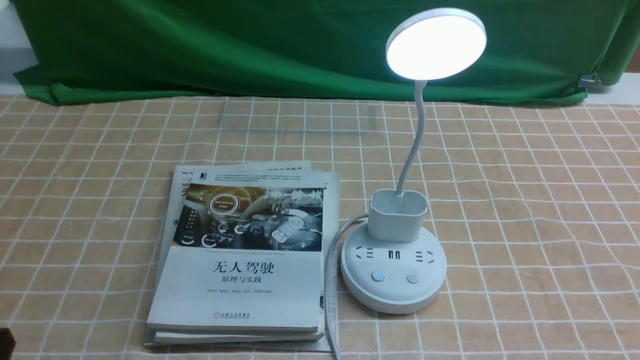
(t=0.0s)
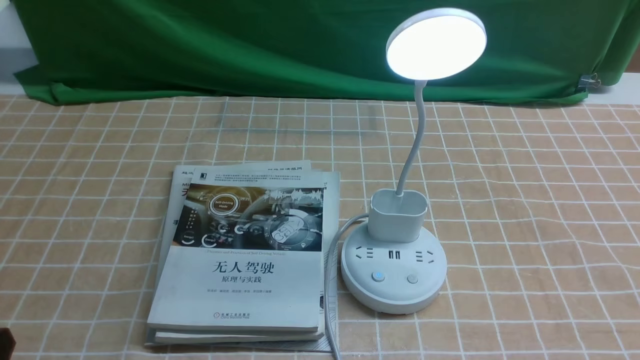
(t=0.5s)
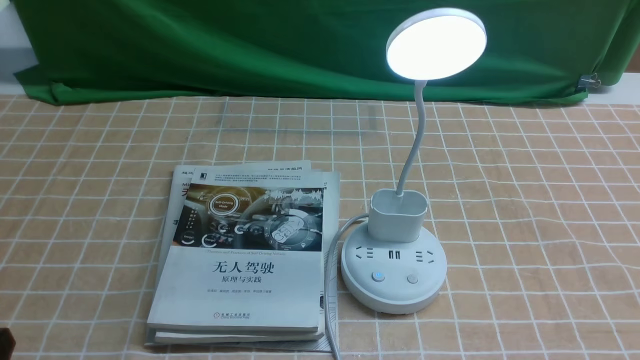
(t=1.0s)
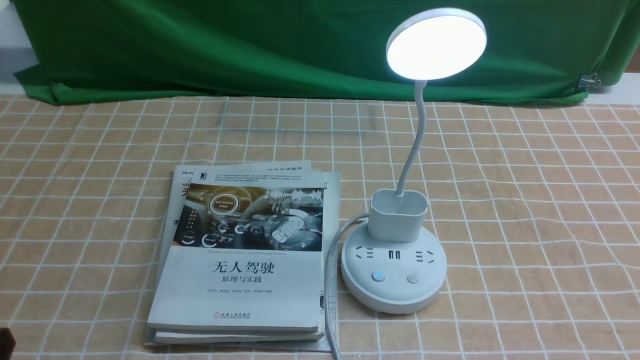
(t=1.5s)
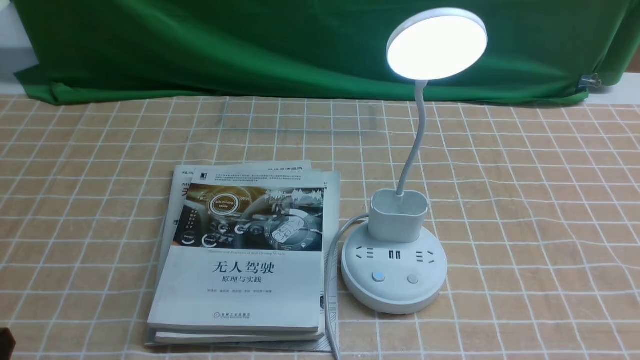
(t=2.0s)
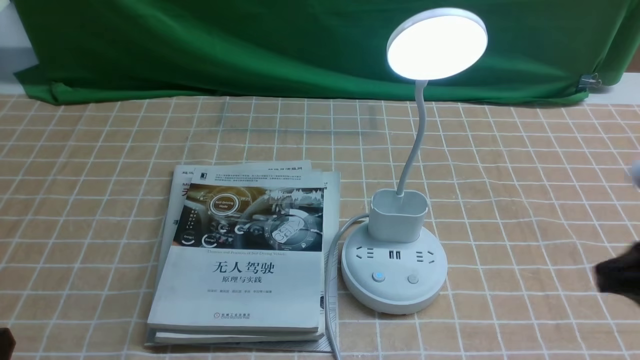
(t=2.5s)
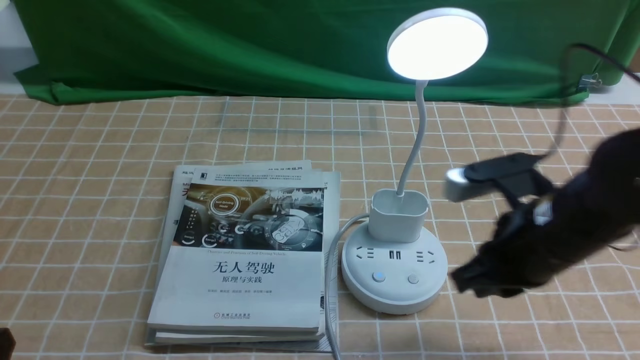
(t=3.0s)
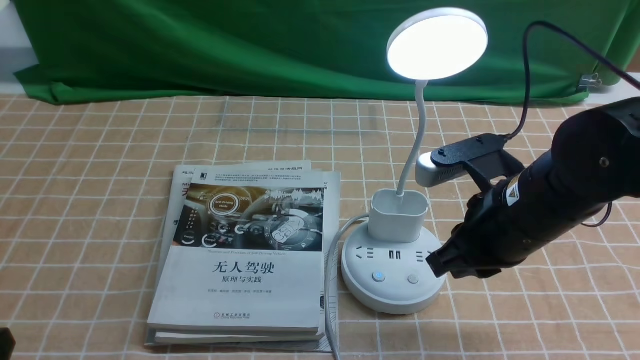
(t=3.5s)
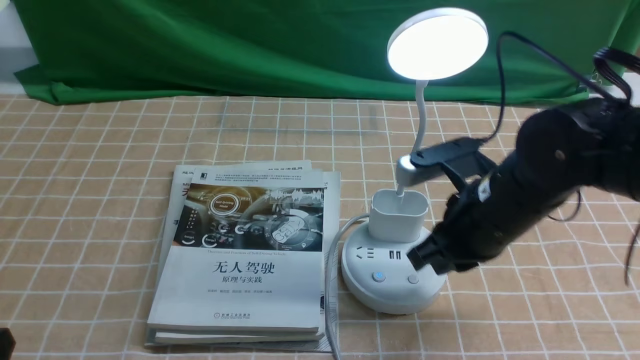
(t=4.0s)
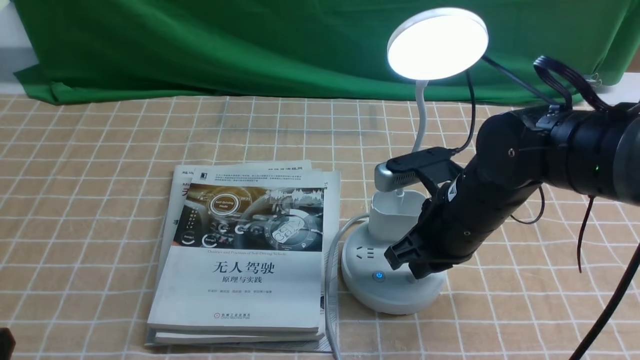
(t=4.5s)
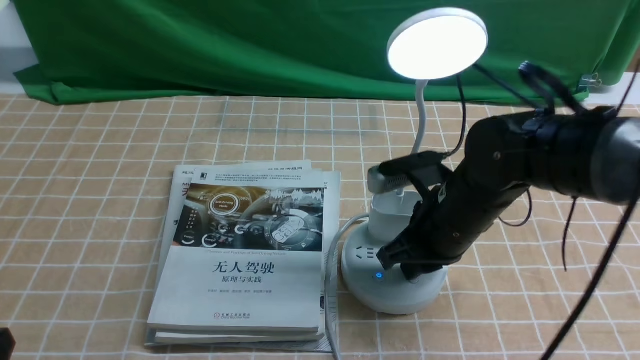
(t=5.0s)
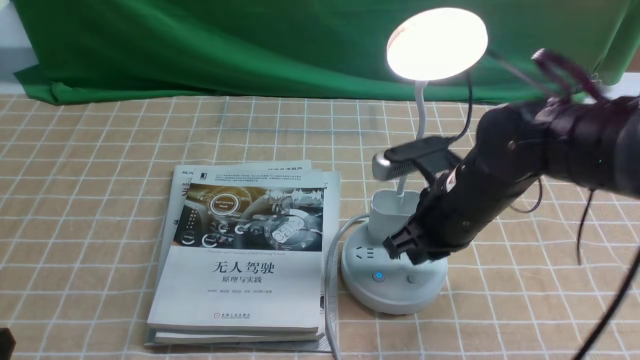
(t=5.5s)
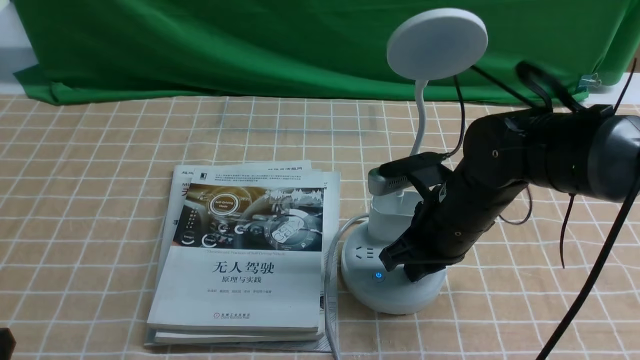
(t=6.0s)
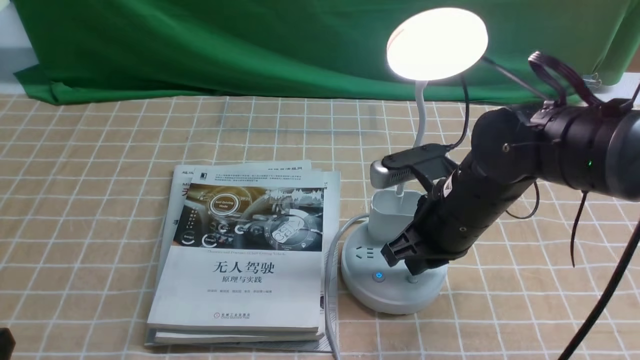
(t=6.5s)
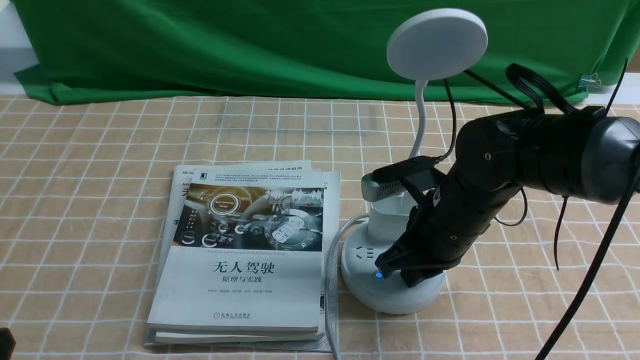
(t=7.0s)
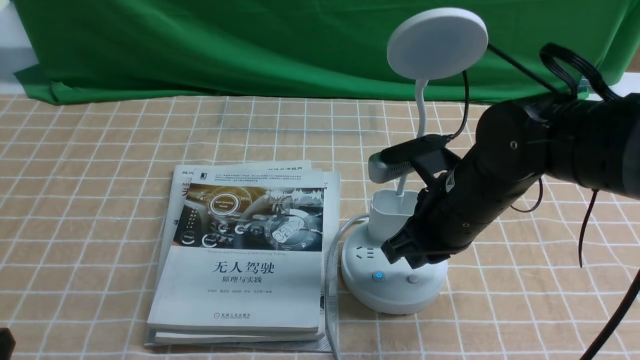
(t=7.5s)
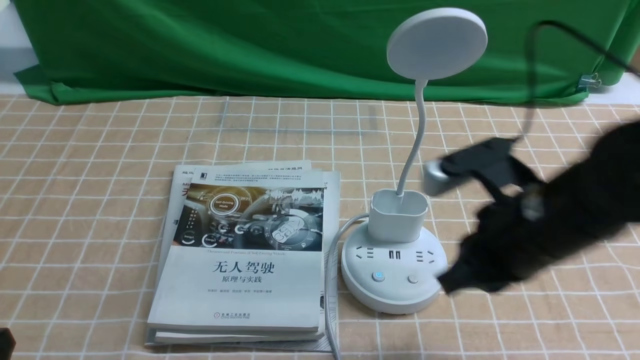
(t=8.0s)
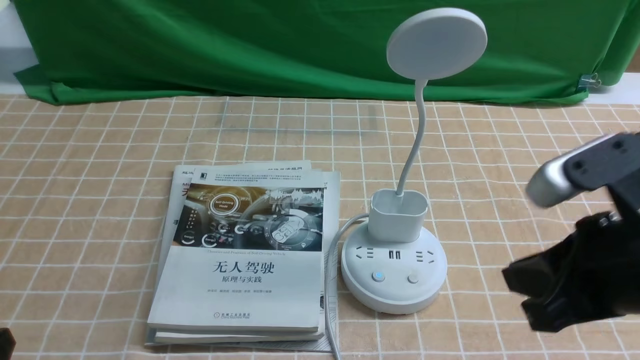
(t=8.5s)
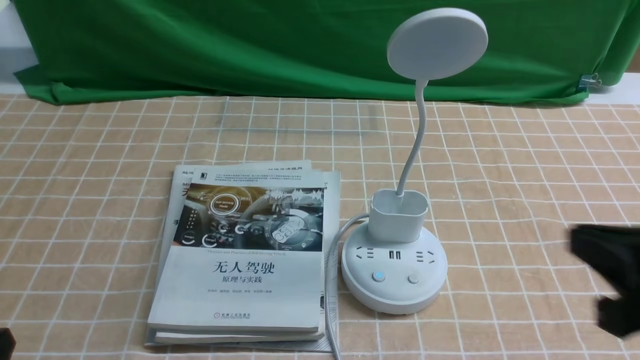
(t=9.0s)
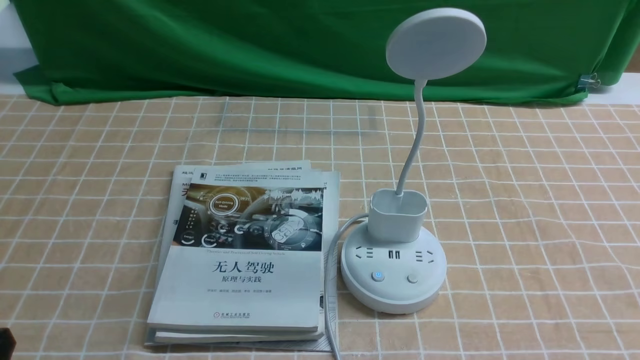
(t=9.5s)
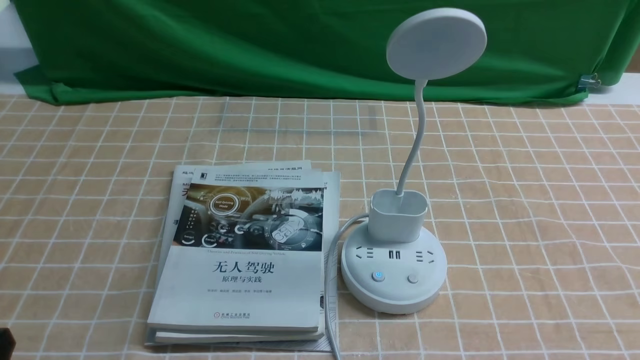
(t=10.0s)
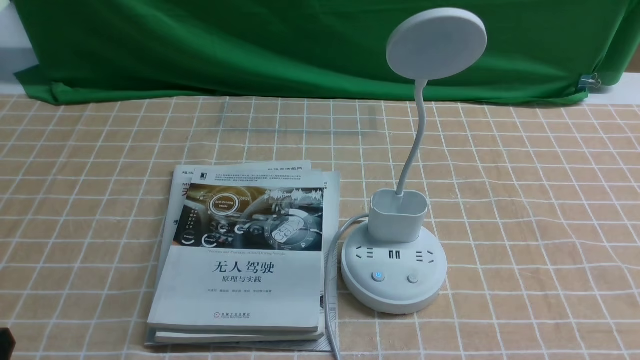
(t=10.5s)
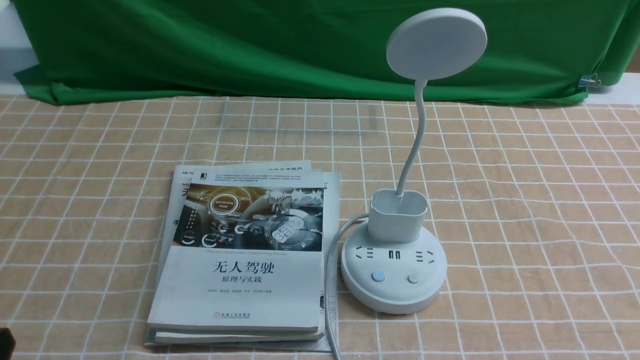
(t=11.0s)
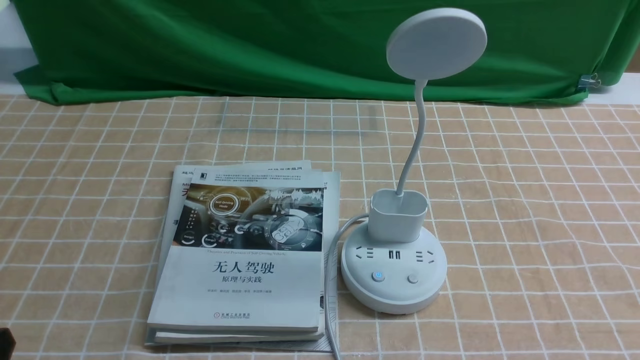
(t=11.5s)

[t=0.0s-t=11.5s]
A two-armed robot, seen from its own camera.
Task of the whole recording: turn off the desk lamp on the light coffee tablecloth by hand.
Step, t=0.0s to t=7.0s: use the right arm to press the button switch on the lamp holder.
t=2.0s to t=4.0s: The right gripper is displaced forward and to the left by roughly 25 cm, and closes its fingers.
t=4.0s to t=6.0s: The right gripper ends up about 5 cm from where it was.
t=6.0s to t=7.5s: The grippers move only a little.
t=7.5s to t=9.5s: The right gripper is displaced backward and to the right by some 30 cm.
